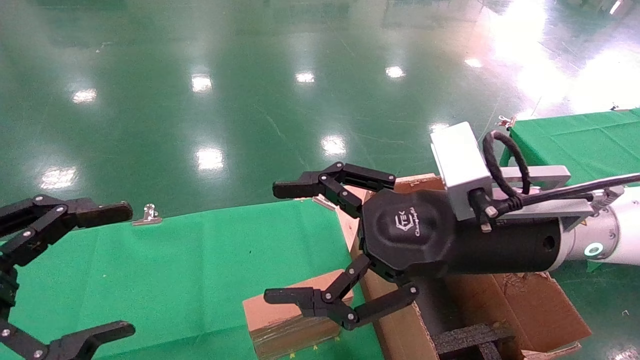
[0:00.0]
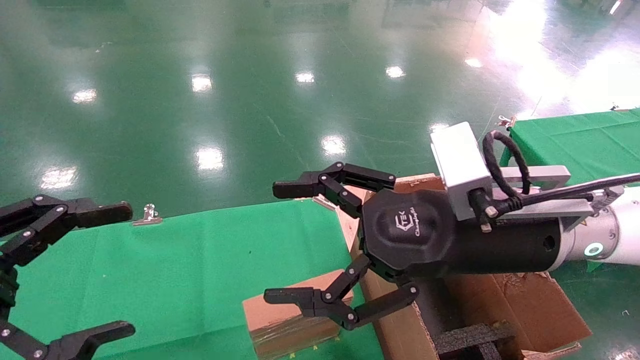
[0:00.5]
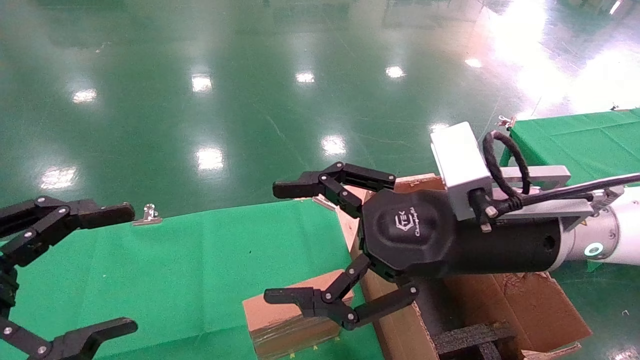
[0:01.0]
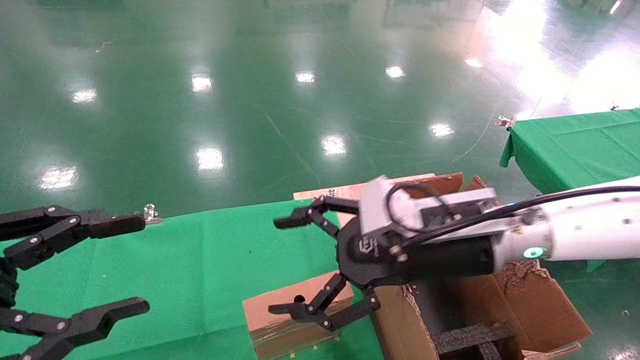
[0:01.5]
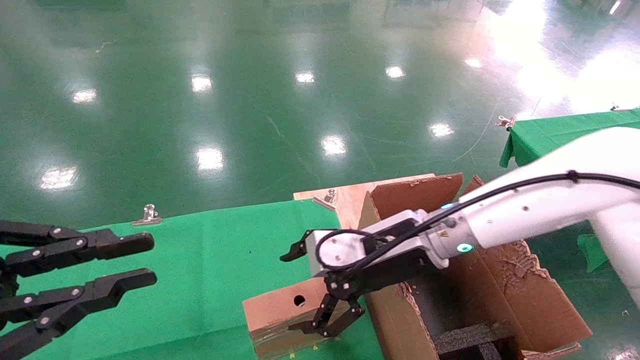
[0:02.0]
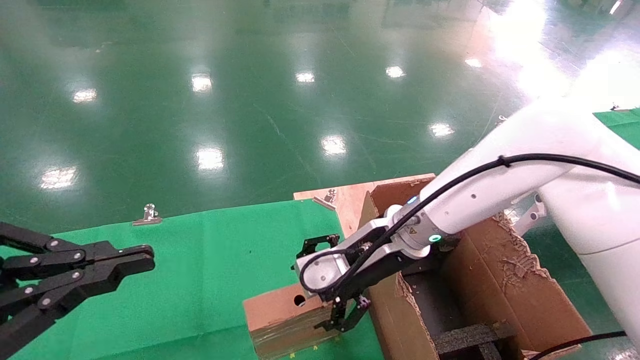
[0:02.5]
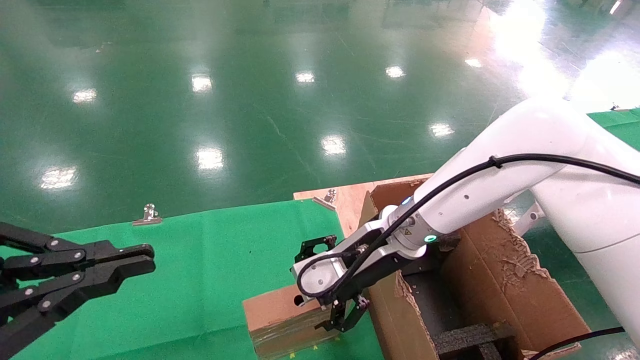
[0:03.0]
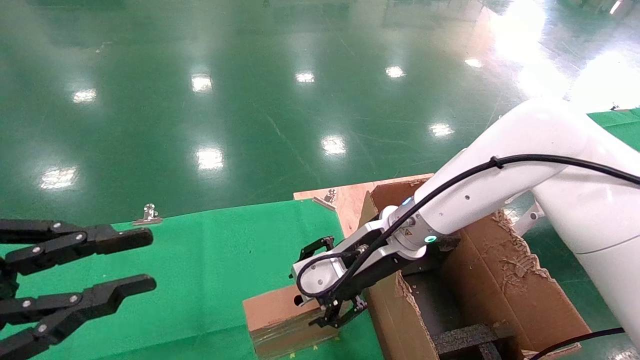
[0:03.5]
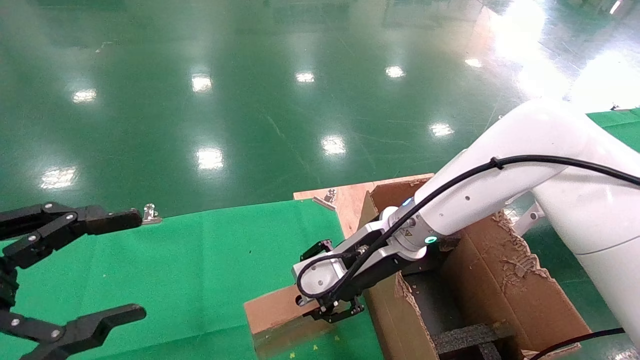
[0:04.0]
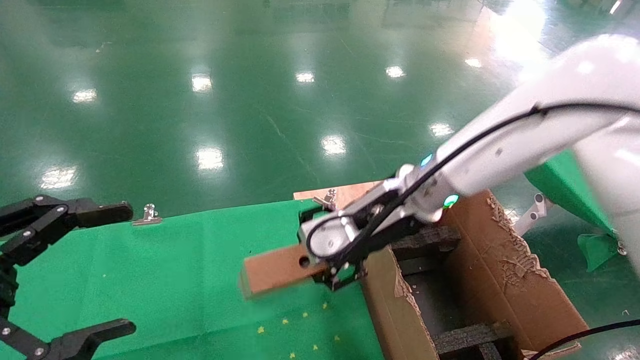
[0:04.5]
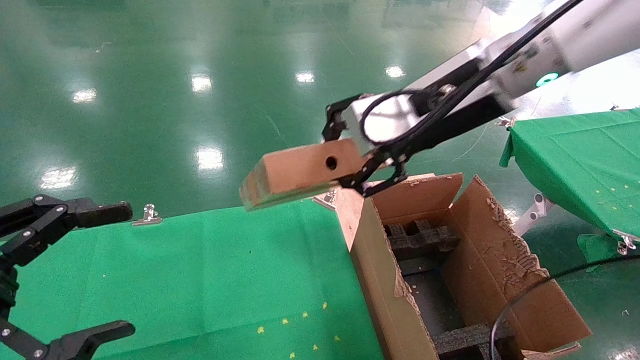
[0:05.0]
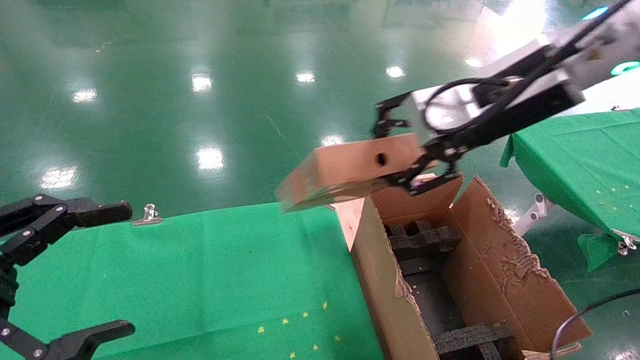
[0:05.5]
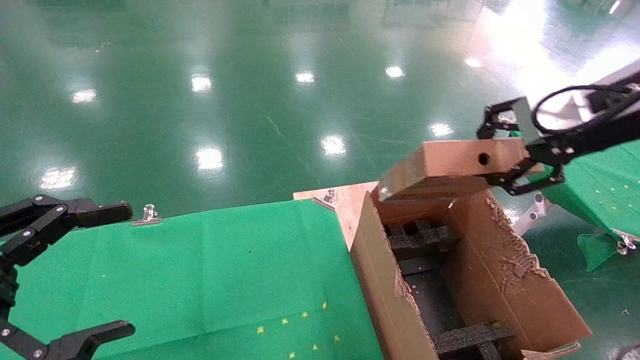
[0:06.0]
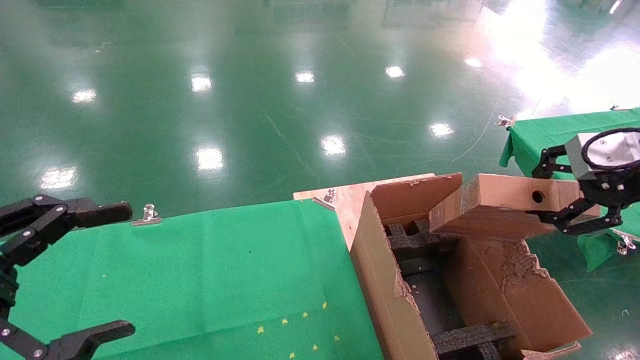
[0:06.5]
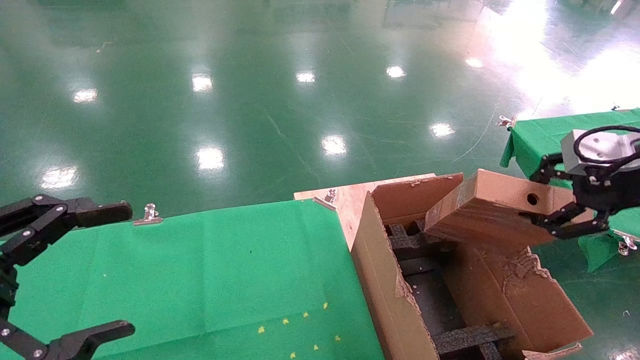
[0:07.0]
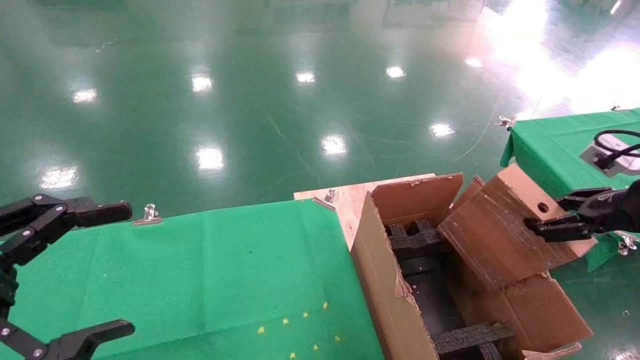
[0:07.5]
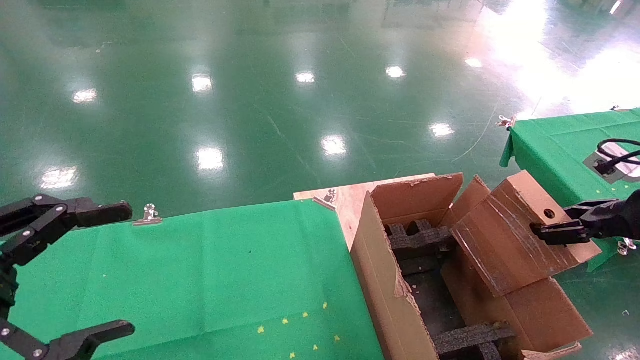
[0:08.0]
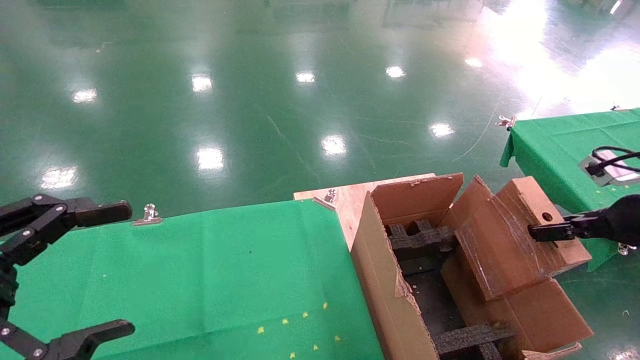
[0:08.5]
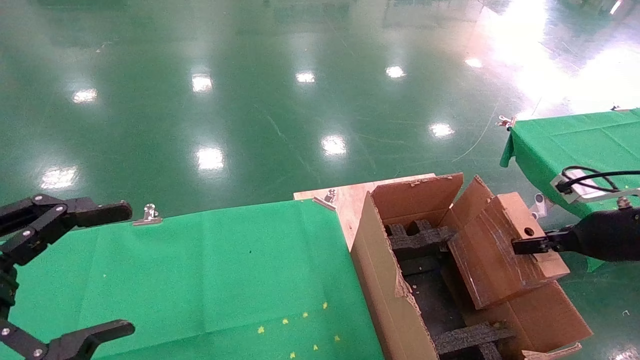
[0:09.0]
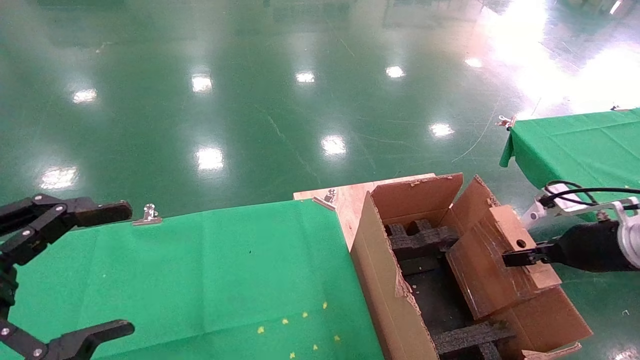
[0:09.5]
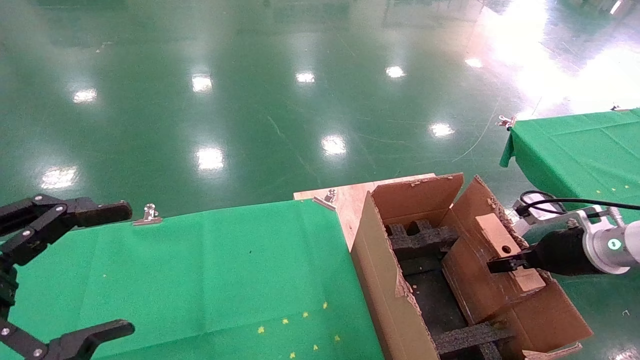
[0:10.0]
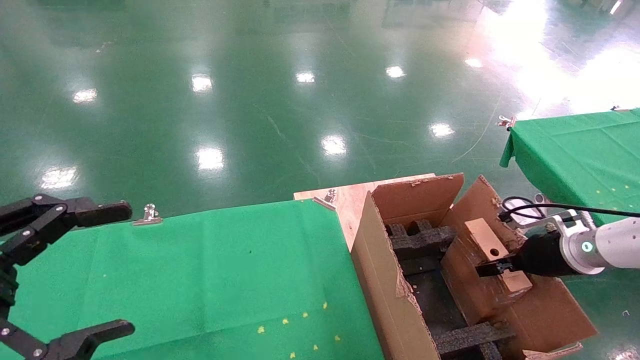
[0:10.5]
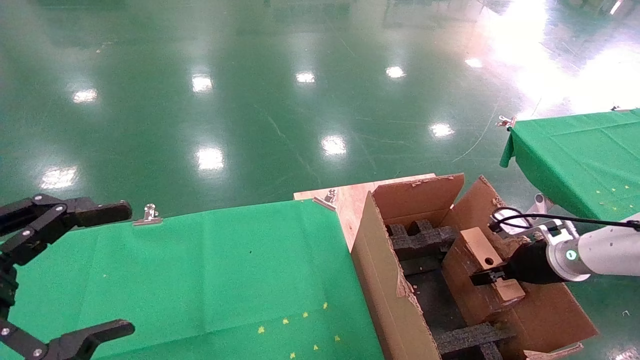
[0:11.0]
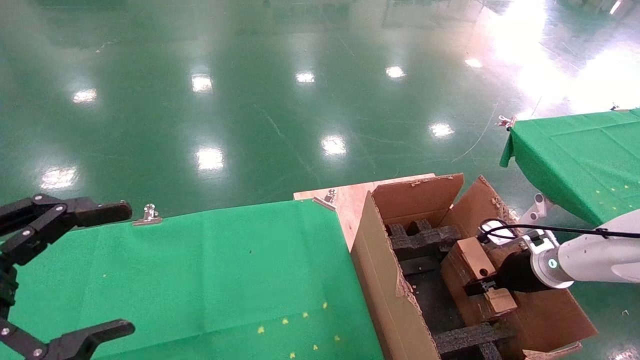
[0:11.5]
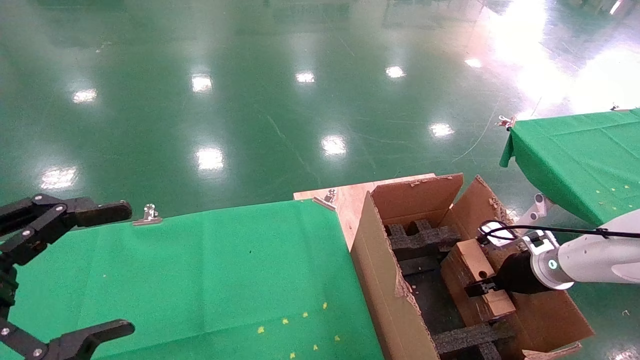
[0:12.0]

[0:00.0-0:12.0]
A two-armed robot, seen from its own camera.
Task of the whole recording: using a robotic arm to pick up a cardboard box and palace it the carton.
Step, 0:01.5 to 0:04.0: Pick up the mouse and the power cord paper box.
0:00.0 to 0:02.0: The right gripper goes approximately 10 cm forward and downward, while the left gripper closes.
0:02.0 to 0:04.0: The right gripper closes up.
0:04.0 to 0:06.0: The left gripper opens up; the right gripper heads to the right, upward and backward, covering some 30 cm.
0:06.0 to 0:08.0: The right gripper travels downward and to the right by some 20 cm.
0:08.0 to 0:10.0: The right gripper goes approximately 15 cm downward and forward.
0:10.0 to 0:12.0: The right gripper is displaced downward and forward by approximately 10 cm.

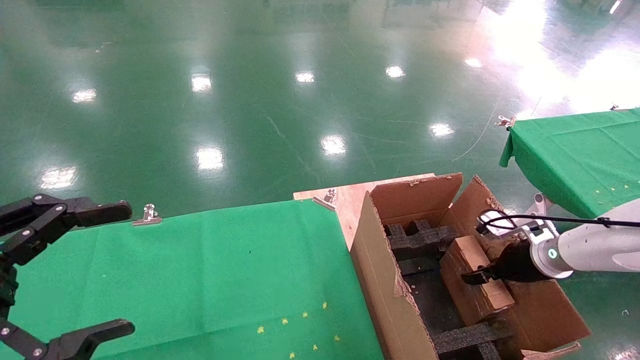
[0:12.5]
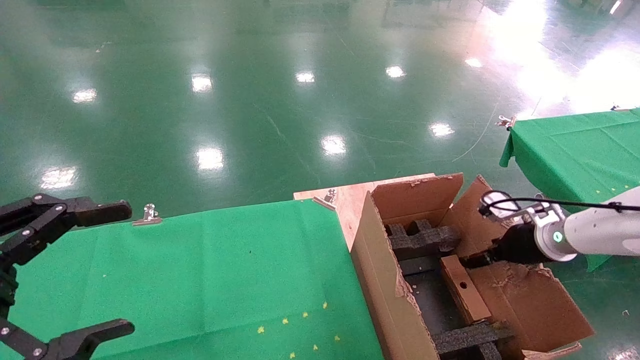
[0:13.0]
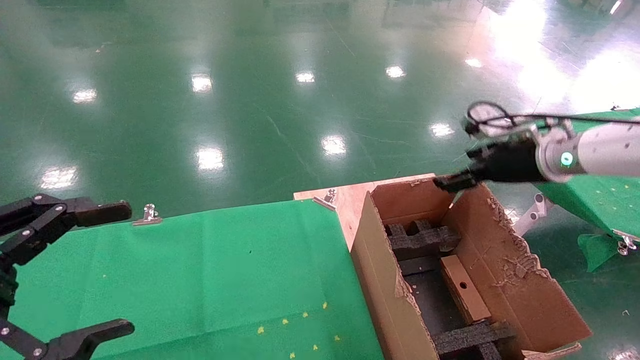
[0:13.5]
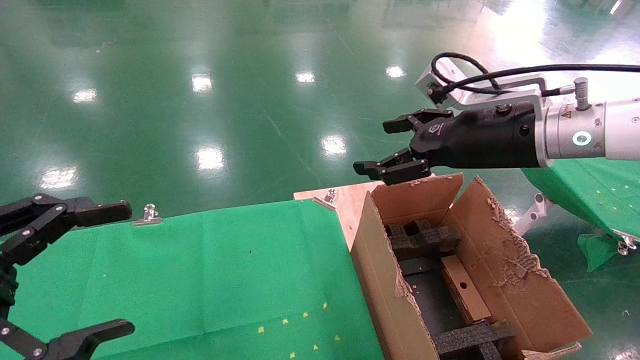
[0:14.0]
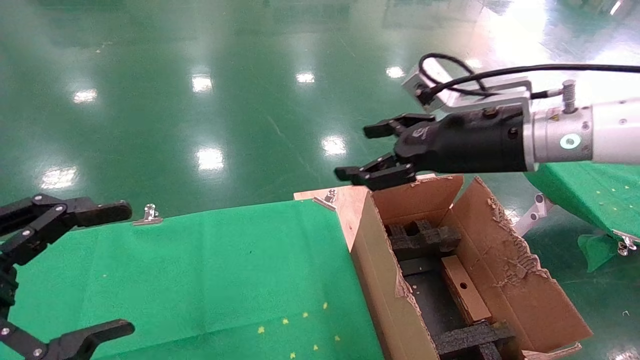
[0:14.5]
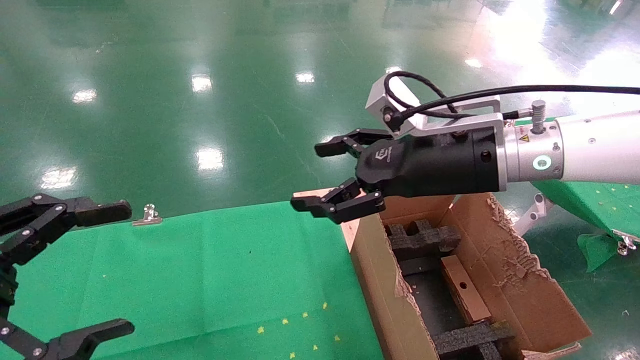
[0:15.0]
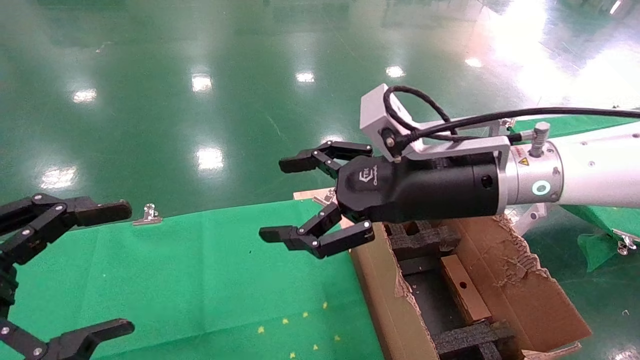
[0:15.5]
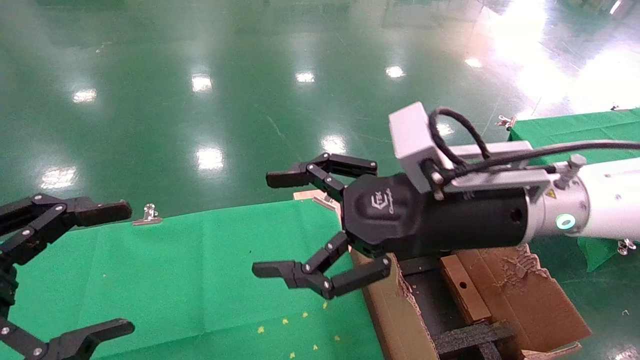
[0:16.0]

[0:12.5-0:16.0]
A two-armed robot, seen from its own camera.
Task of the whole recording: using a robotic arm to pick up a cardboard box and palace it the carton.
0:12.5 to 0:14.5: The right gripper heads upward and to the left, covering roughly 30 cm, and opens.
0:14.5 to 0:16.0: The right gripper heads to the left and backward, covering approximately 10 cm.
